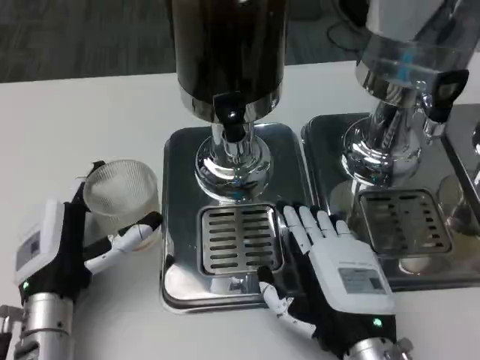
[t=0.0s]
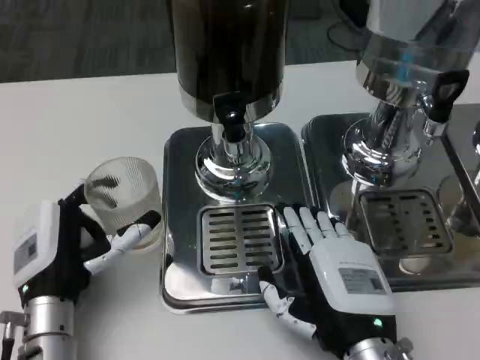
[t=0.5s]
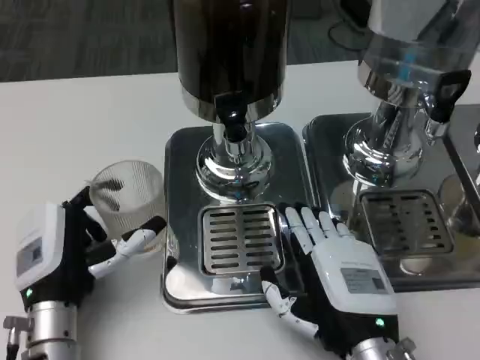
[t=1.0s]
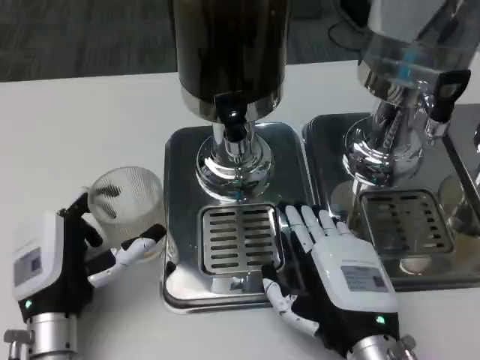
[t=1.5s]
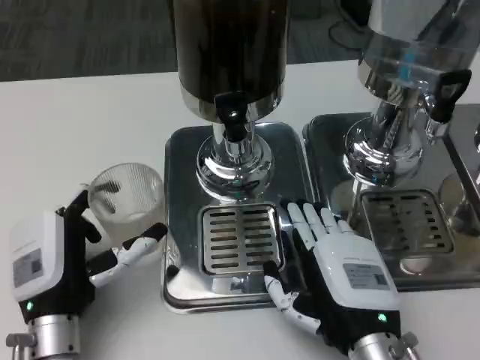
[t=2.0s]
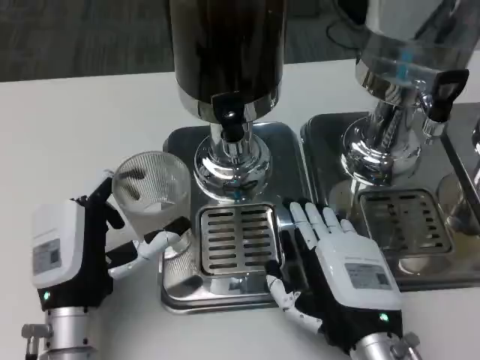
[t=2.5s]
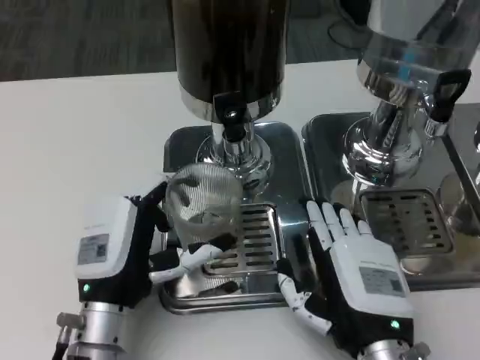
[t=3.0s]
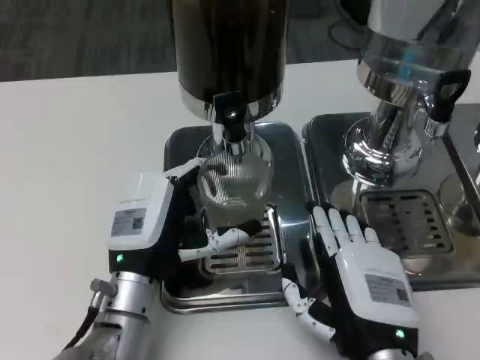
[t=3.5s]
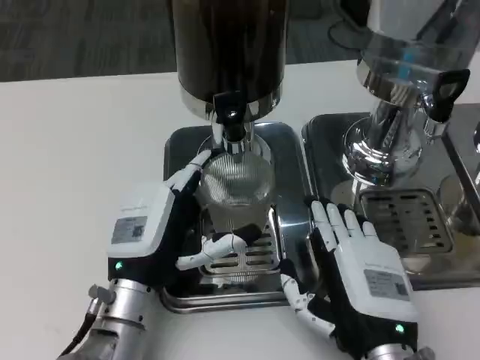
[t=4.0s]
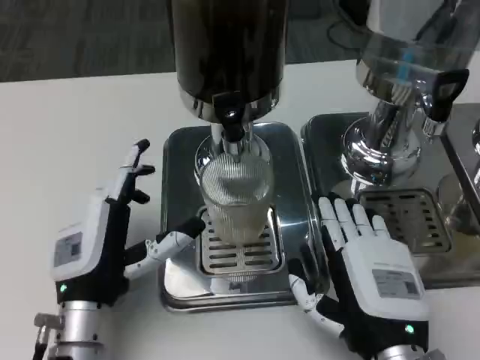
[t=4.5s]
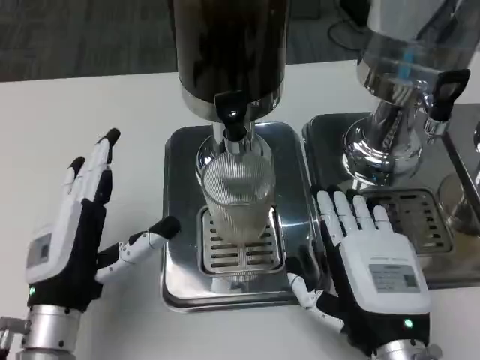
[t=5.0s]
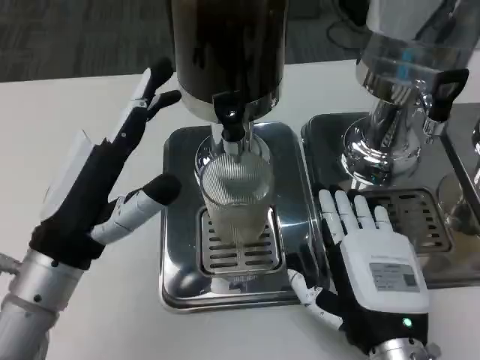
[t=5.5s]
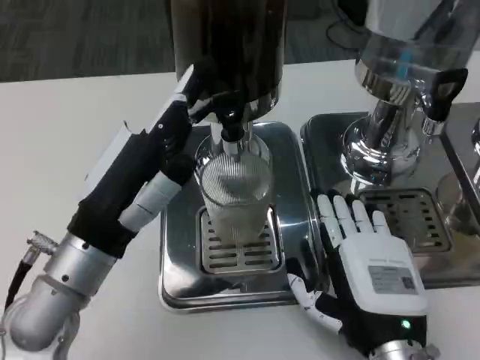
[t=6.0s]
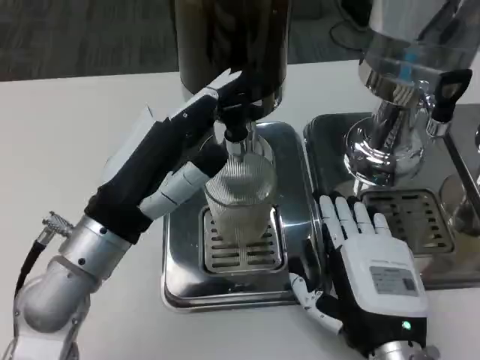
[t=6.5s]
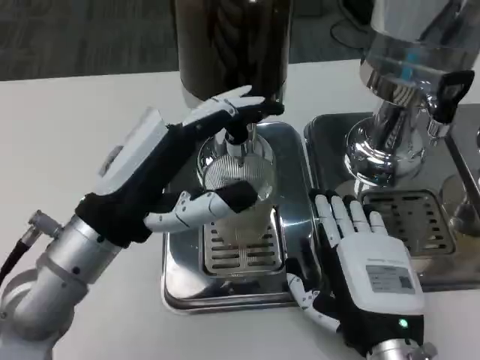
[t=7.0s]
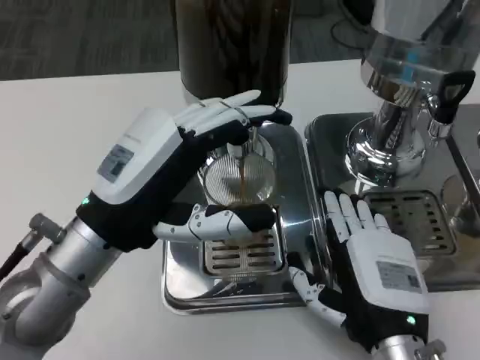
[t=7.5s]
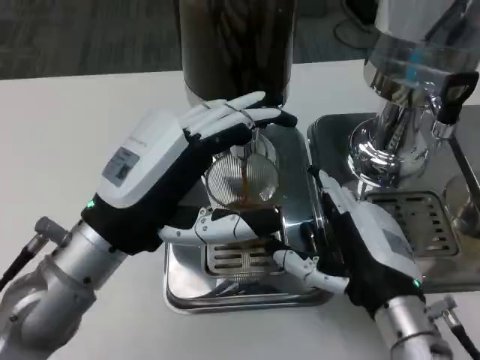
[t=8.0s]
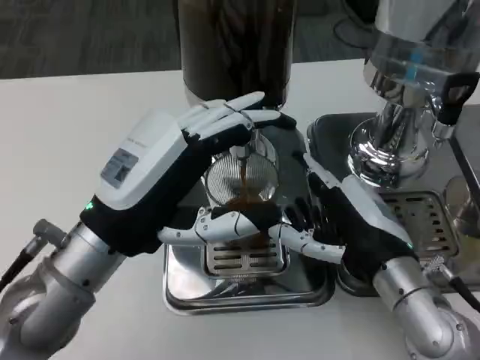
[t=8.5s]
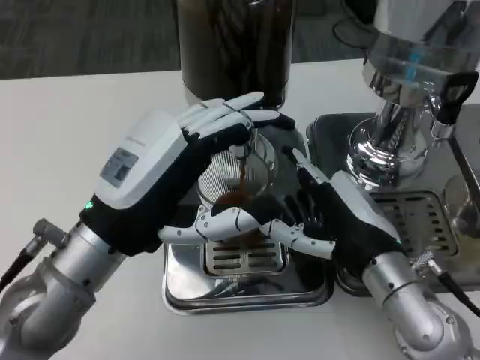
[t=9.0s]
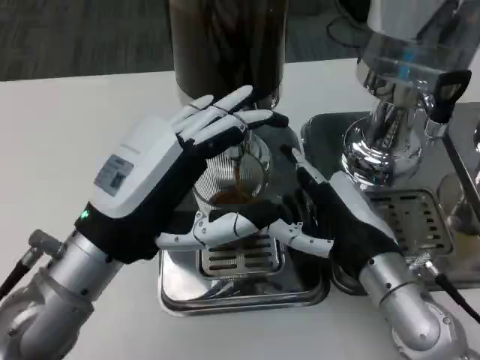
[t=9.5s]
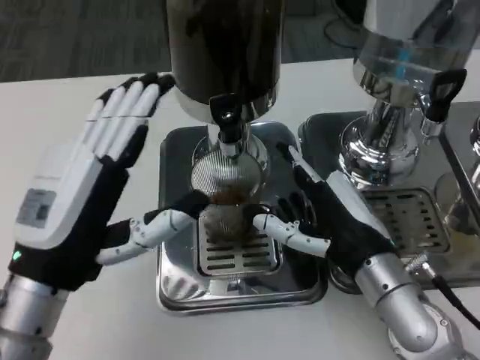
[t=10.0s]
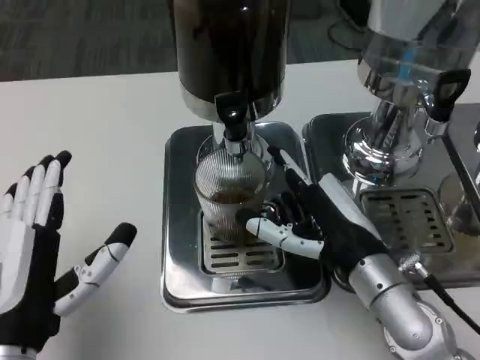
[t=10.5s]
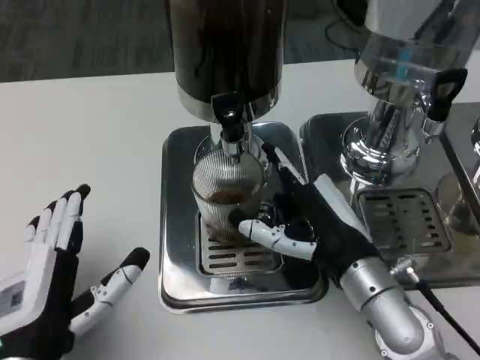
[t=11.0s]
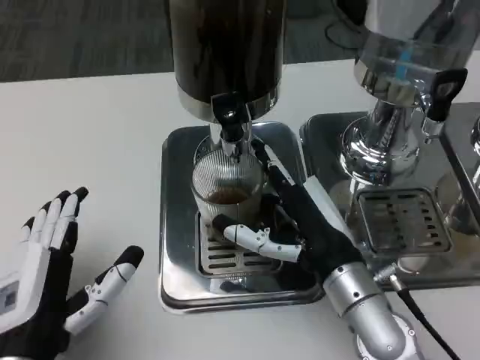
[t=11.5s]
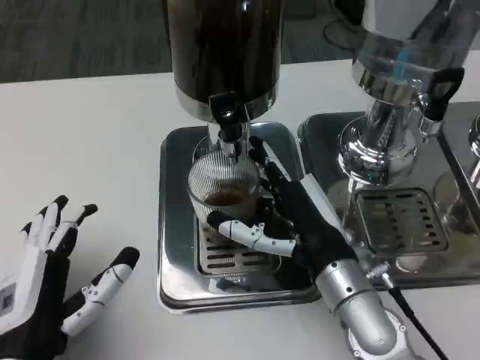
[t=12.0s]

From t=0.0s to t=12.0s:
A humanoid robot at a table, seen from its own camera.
Task of the whole recording: Grasp the cup under the faucet to collect the drink, then remove the cup.
From t=0.0s to t=2.0s: The hands move only a little.
From t=2.0s to t=4.0s: The left hand changes place by about 5 cm.
From t=4.0s to t=6.0s: The left hand moves upward, some 10 cm.
From t=8.0s to t=10.0s: The left hand ends up some 5 cm from where it was.
From t=10.0s to t=12.0s: The left hand is displaced downward by approximately 5 cm.

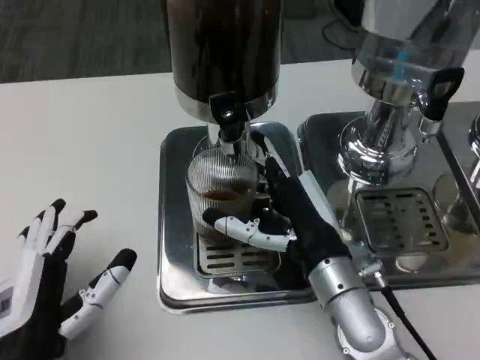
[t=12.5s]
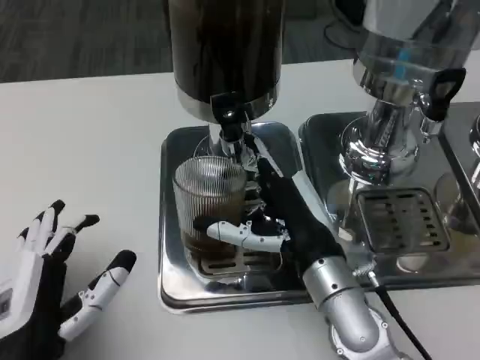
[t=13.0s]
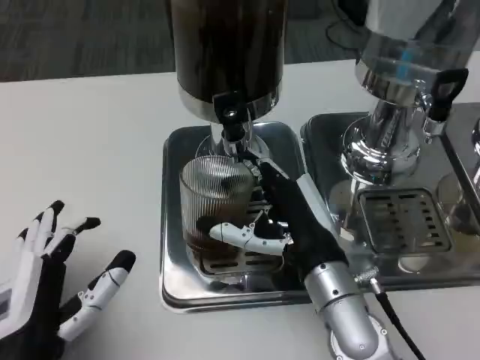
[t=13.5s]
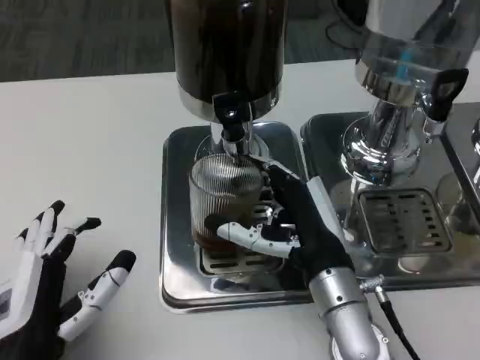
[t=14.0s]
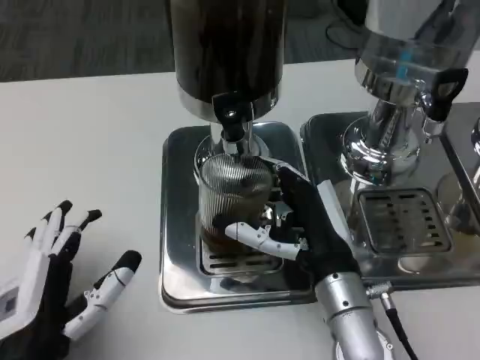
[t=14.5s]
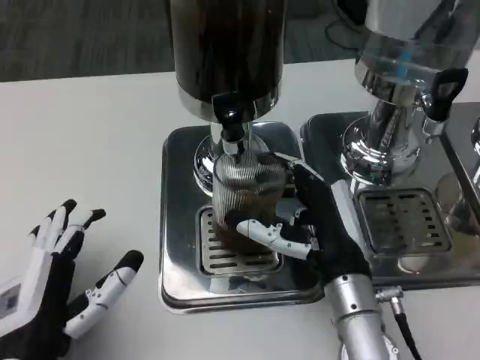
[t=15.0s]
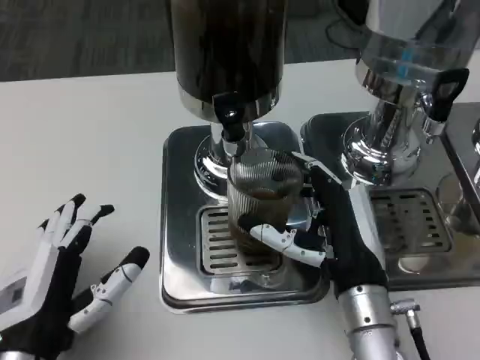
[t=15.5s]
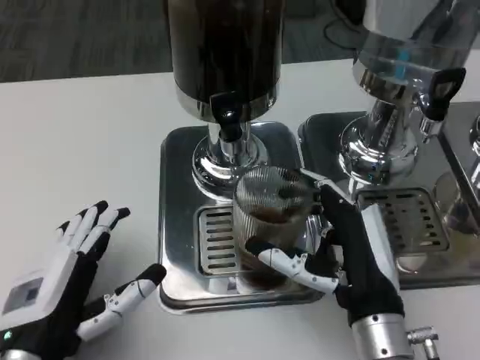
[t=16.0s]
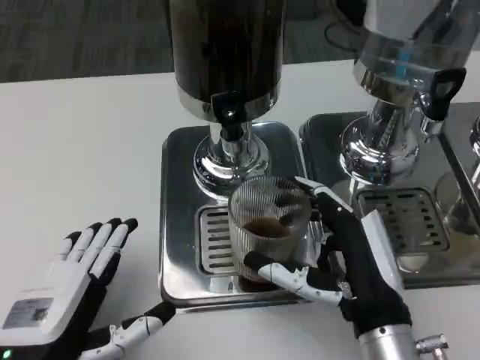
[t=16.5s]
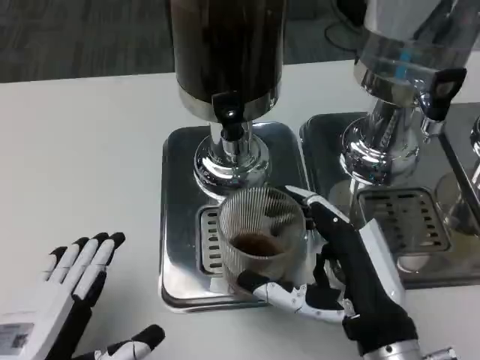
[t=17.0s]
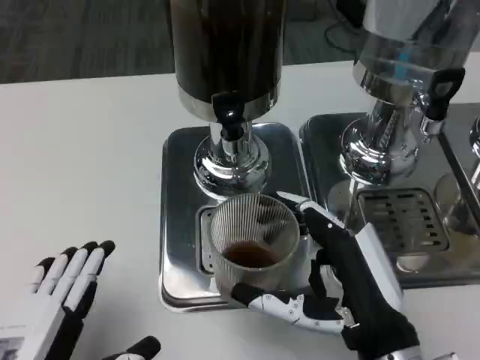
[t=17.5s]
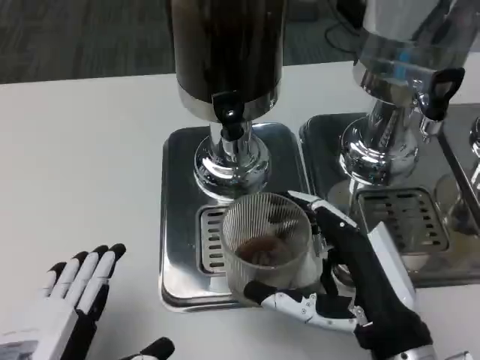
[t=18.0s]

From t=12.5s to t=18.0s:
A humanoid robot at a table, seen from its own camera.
Task of the whole recording: Grasp the cup under the faucet to collect the drink, then remove the cup.
From t=12.5s to t=14.5s: The hands make only small movements.
From t=14.5s to t=16.0s: The right hand changes place by some 5 cm.
From t=16.0s to t=18.0s: The left hand travels backward by about 5 cm.

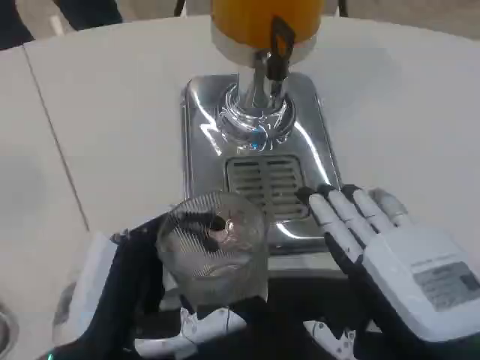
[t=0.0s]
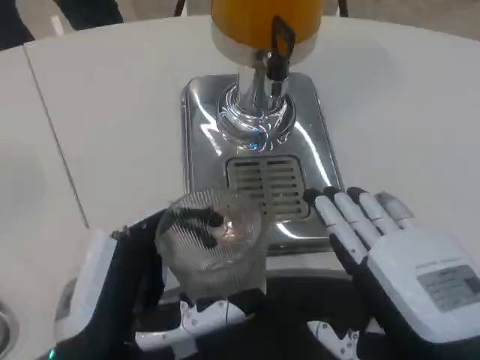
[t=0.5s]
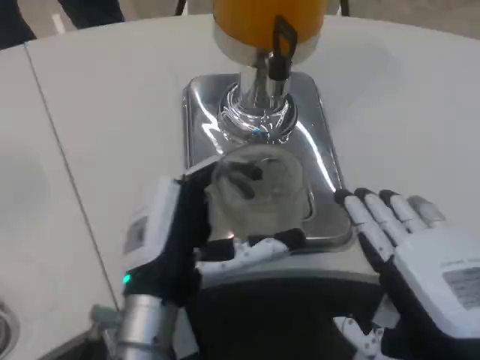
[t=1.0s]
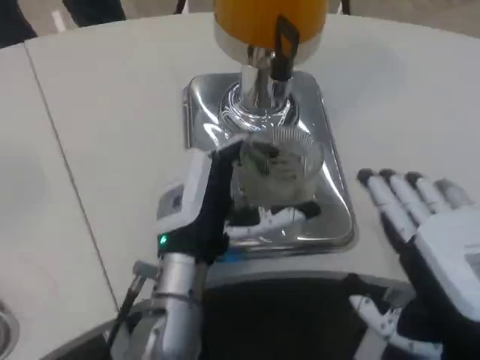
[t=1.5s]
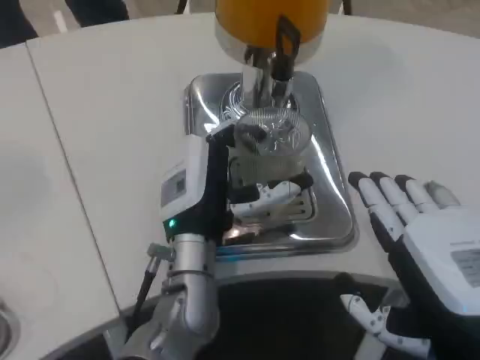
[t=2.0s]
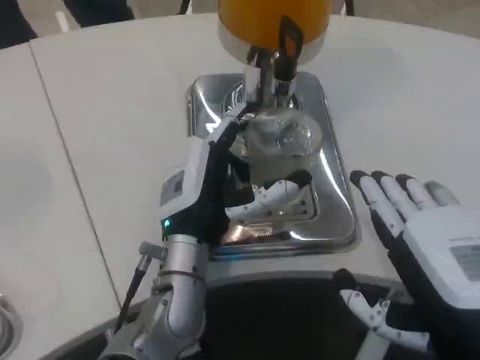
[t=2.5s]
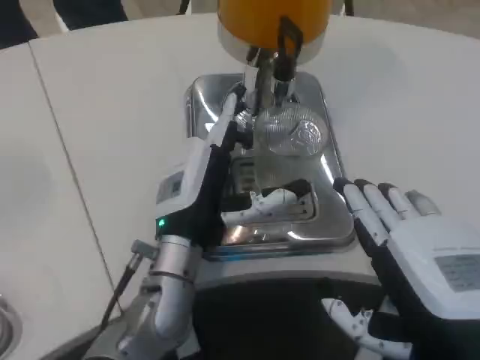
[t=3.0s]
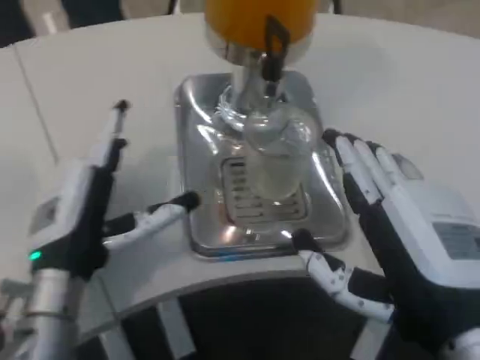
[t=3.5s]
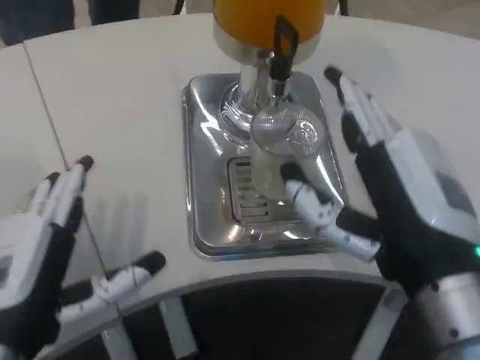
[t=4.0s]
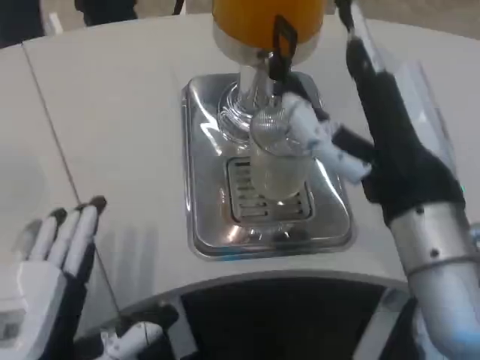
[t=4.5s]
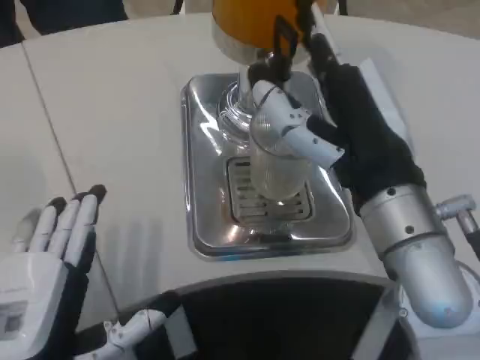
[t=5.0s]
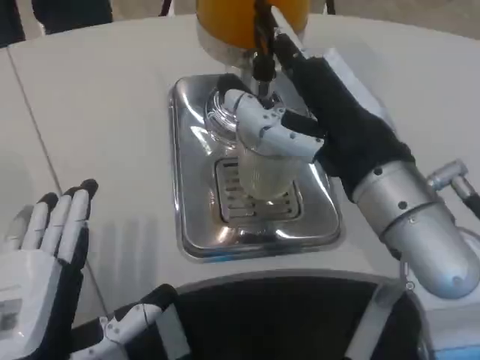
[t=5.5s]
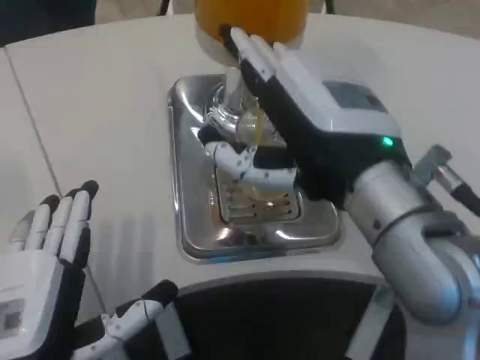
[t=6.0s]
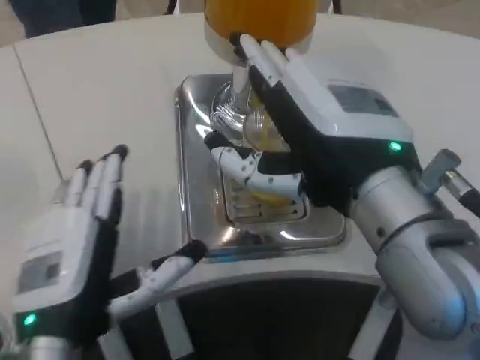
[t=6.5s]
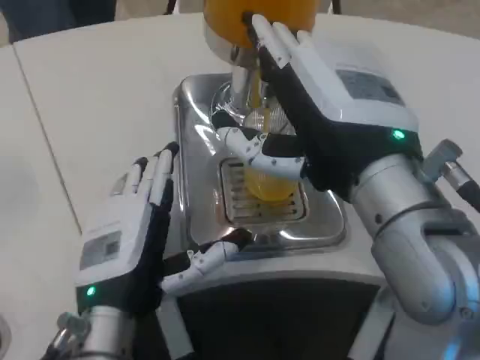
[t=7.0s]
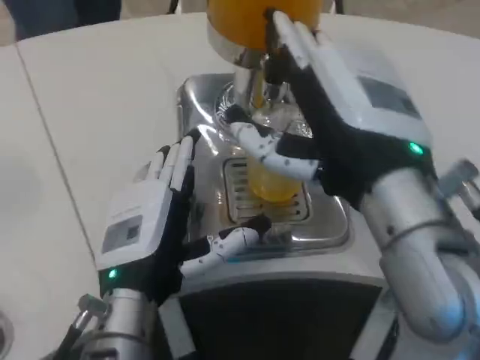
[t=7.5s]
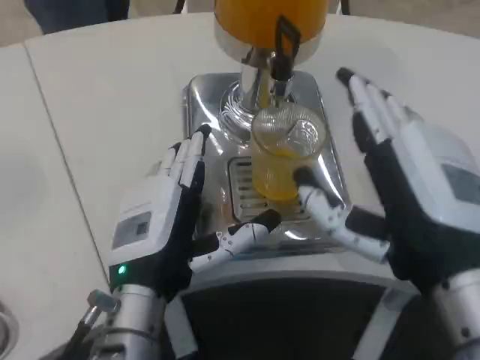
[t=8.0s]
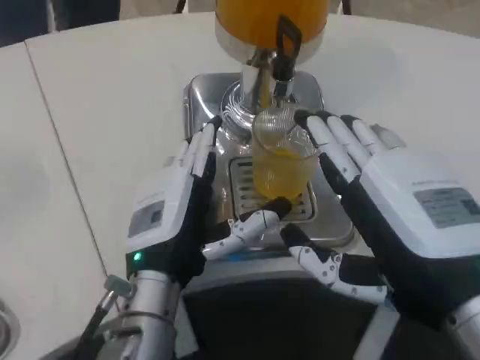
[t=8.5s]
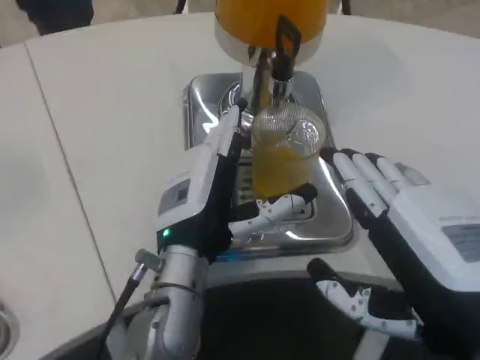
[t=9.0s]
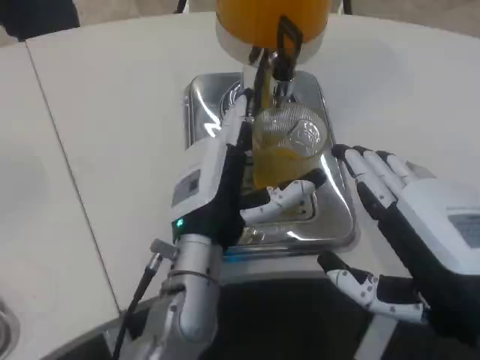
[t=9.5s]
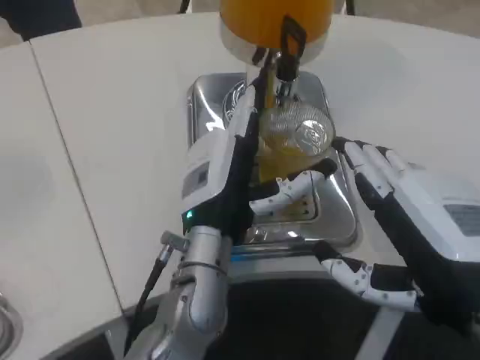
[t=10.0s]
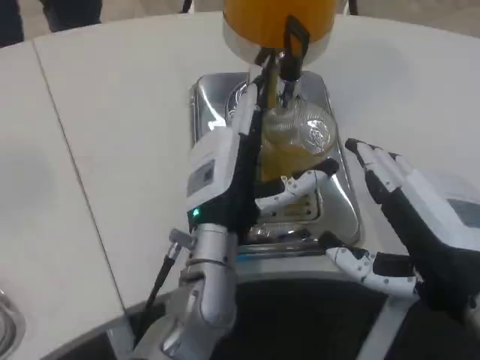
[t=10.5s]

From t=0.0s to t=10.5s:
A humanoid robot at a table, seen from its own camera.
Task of the whole recording: Grasp the cup under the faucet to collect the drink, then remove the cup.
From t=0.0s to t=2.0s: The left hand moves forward and to the right, approximately 20 cm.
From t=2.0s to t=4.0s: The right hand shifts approximately 5 cm forward. Meanwhile the left hand shifts approximately 20 cm backward and to the left.
From t=4.0s to t=6.5s: The right hand moves upward, approximately 10 cm. The left hand moves some 5 cm.
From t=6.5s to t=8.5s: The right hand moves downward and to the right, approximately 10 cm. Meanwhile the left hand goes some 10 cm forward and to the right.
From t=8.5s to t=10.5s: The left hand shifts approximately 10 cm to the right and forward.
